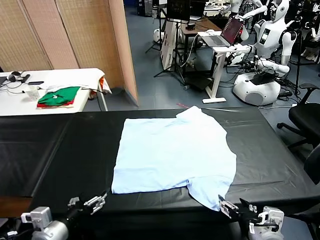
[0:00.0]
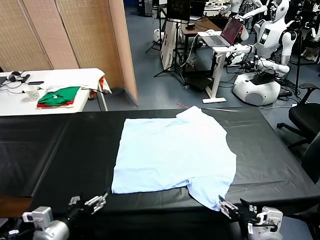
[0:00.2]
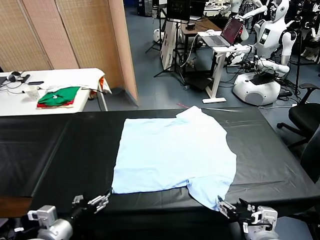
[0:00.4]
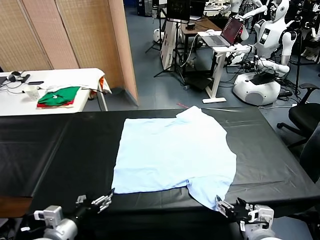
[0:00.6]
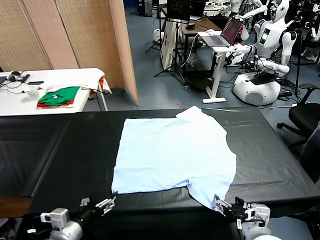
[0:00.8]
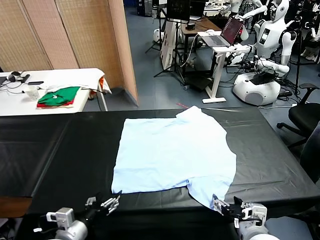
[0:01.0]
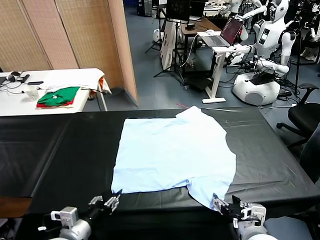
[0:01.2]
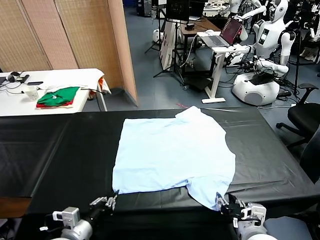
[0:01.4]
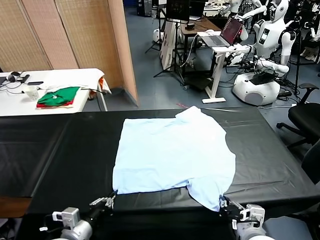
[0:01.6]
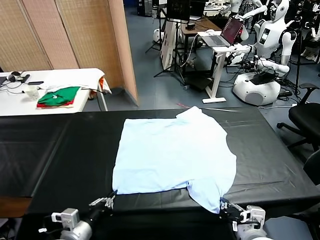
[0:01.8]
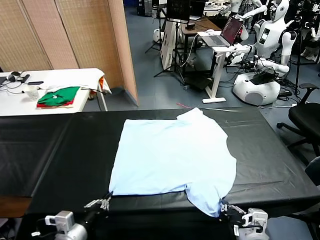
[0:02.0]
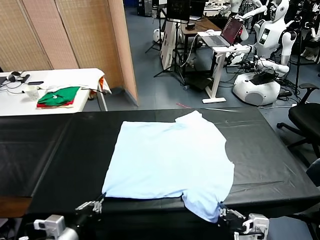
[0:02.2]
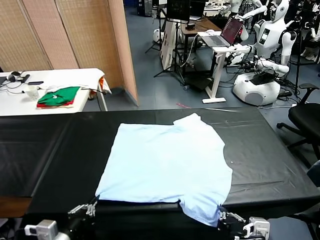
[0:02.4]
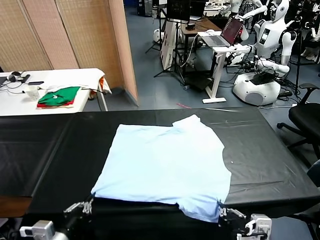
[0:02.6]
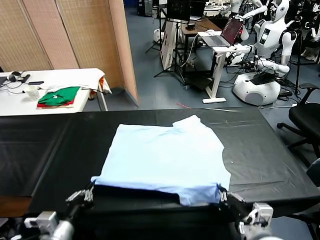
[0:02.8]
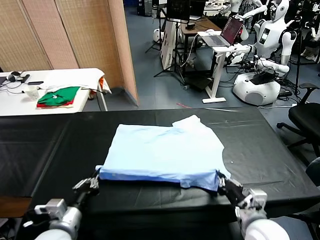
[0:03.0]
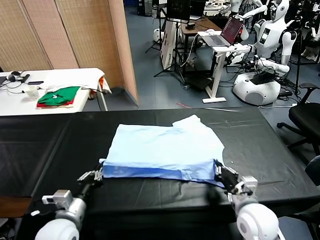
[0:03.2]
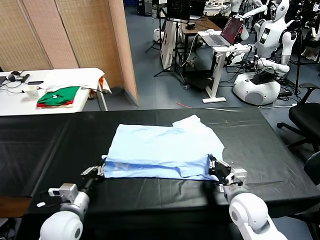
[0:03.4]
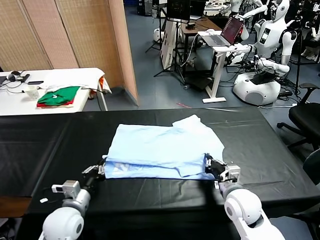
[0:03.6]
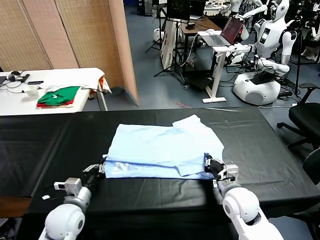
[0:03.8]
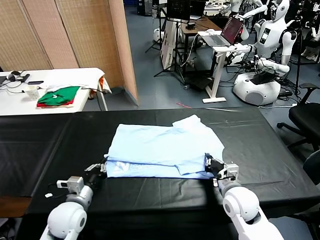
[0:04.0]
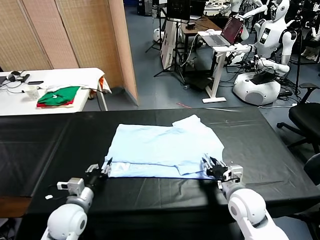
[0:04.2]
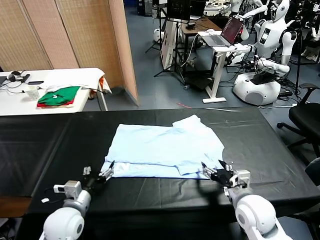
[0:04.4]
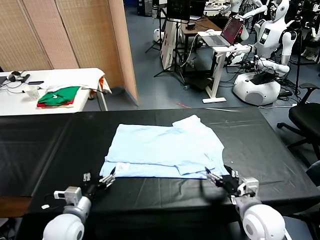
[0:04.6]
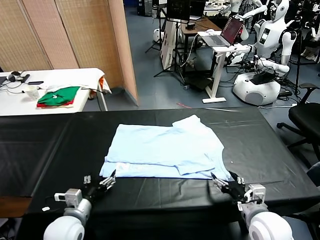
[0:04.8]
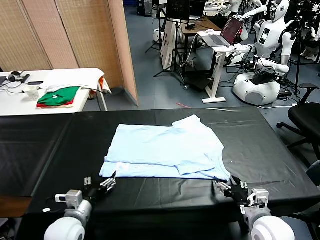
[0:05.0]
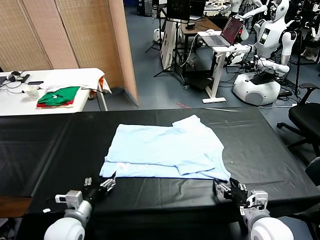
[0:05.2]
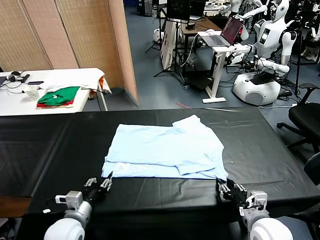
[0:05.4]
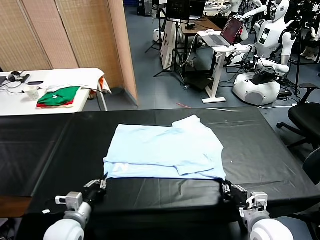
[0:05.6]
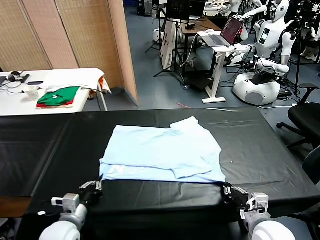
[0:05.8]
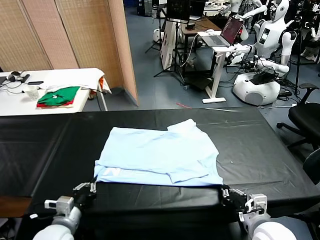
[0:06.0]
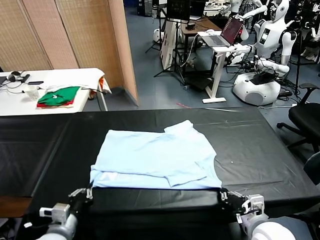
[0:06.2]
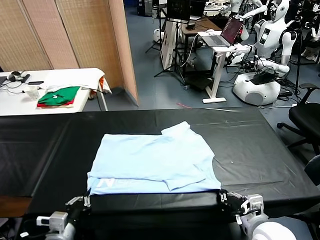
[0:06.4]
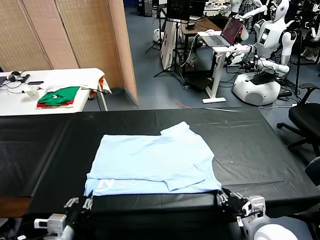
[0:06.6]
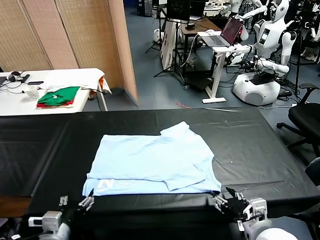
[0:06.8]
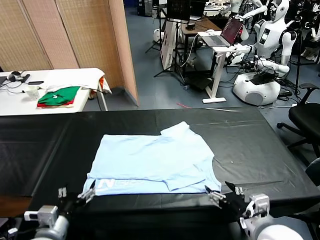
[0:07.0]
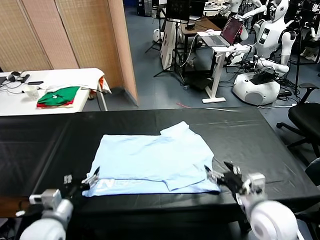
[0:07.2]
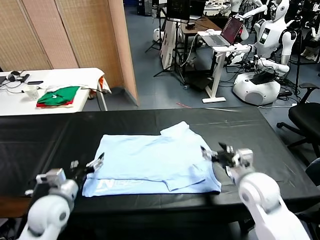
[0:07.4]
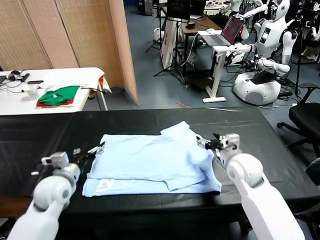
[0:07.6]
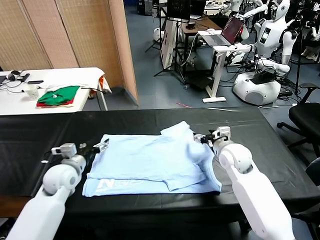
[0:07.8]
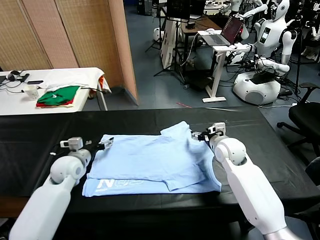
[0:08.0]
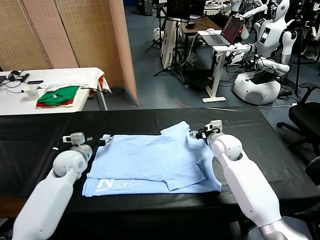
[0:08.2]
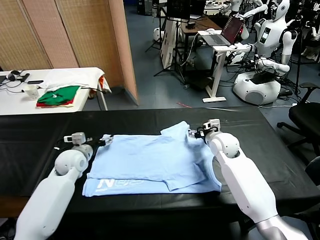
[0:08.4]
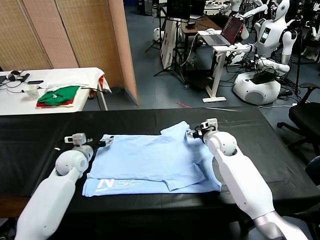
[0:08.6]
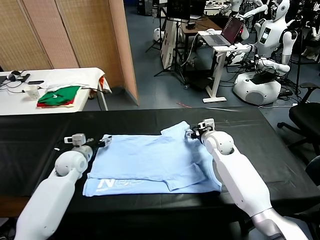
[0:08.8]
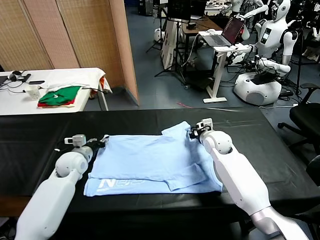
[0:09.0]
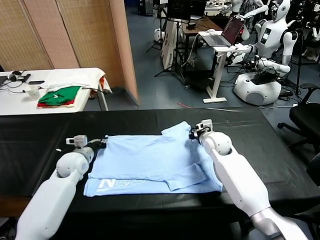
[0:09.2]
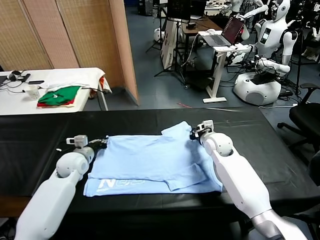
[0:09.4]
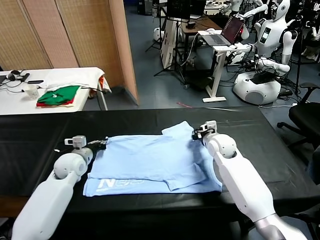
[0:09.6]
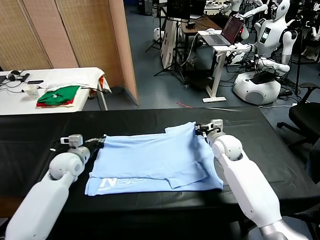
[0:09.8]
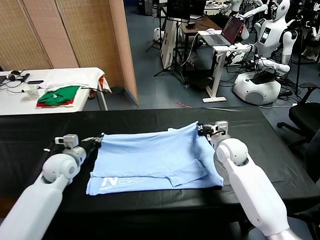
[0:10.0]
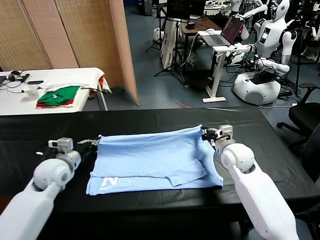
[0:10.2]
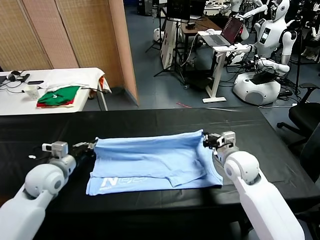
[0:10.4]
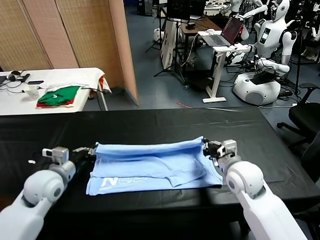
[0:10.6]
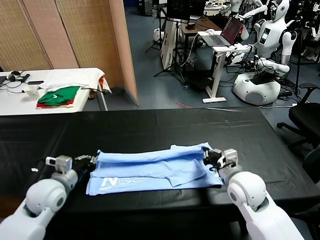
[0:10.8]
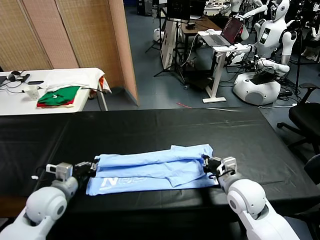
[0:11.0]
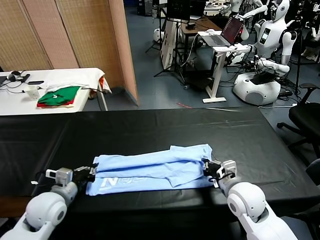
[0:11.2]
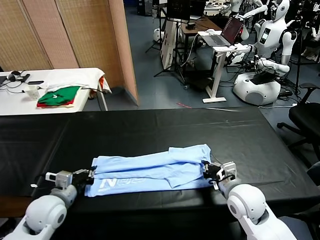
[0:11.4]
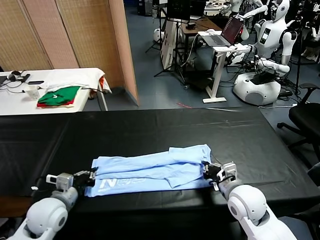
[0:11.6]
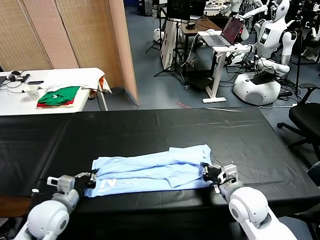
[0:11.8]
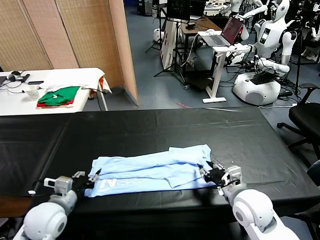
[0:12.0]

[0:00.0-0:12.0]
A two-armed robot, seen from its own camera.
Task of the whole recording: fold and organize the clothes.
Step, 0:00.0 to 0:01.4: use both grippers simultaneously to clamp the lower edge of the clothing fabric.
Step, 0:01.8 to 0:04.2: use both grippers to drag the lower edge of the fabric forward and fold it over the upper edge.
Step, 0:04.4 to 0:06.6: Drag the clothes downward with both gripper.
Step, 0:06.8 to 0:09.0: use both grippers simultaneously to clamp the upper edge of the clothing fabric.
Step, 0:09.4 to 0:12.0: use both grippers to drag the upper edge of the fabric backward and fold it over the lower edge.
0:01.6 to 0:03.0: The right gripper heads forward, covering approximately 10 cm.
0:03.0 to 0:04.4: The right gripper opens up; the left gripper changes place by approximately 5 cm, and opens up.
0:04.4 to 0:06.0: The right gripper closes its fingers, while the left gripper ends up about 5 cm from where it was, and closes up.
0:06.0 to 0:07.6: The left gripper moves forward, roughly 15 cm, and opens its fingers, while the right gripper moves forward, approximately 25 cm, and opens.
0:07.6 to 0:09.0: Both grippers move forward, roughly 10 cm. The left gripper closes its fingers. Meanwhile the right gripper closes its fingers.
0:09.0 to 0:10.4: The left gripper heads backward and upward, covering approximately 15 cm. Meanwhile the right gripper shifts approximately 15 cm backward.
0:10.4 to 0:12.0: The two grippers go some 10 cm backward. The right gripper opens; the left gripper opens.

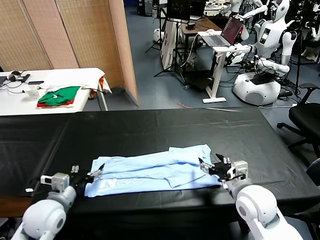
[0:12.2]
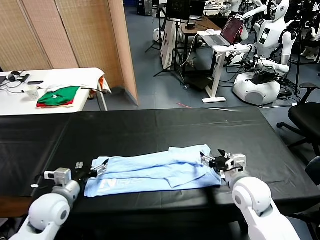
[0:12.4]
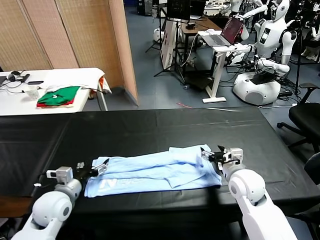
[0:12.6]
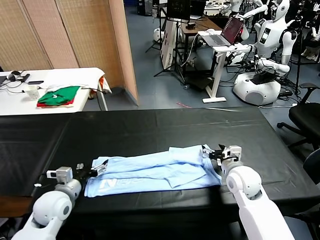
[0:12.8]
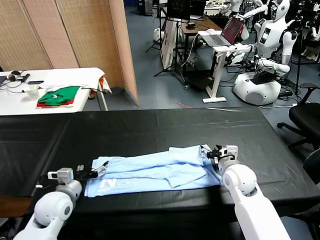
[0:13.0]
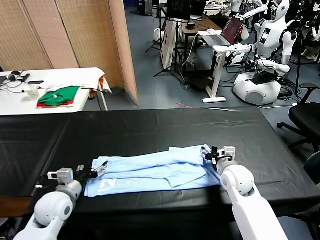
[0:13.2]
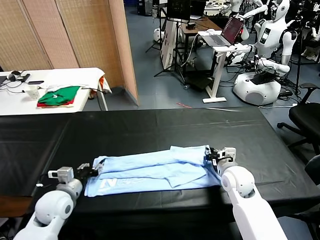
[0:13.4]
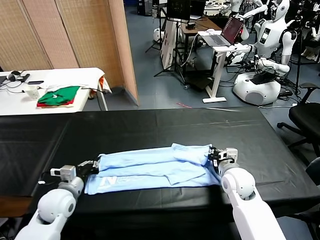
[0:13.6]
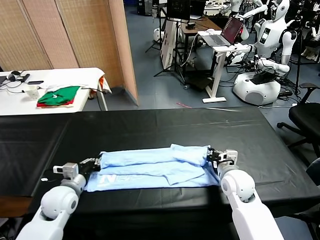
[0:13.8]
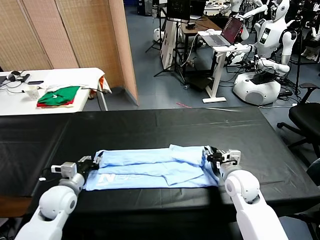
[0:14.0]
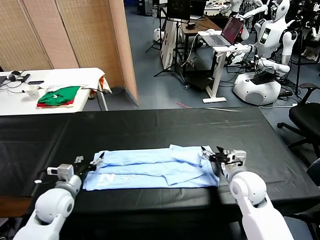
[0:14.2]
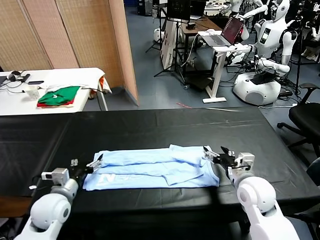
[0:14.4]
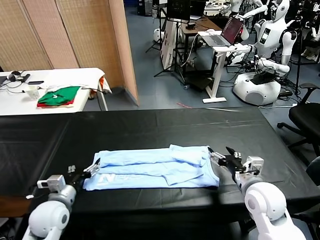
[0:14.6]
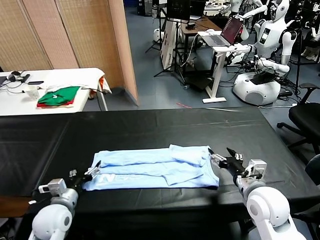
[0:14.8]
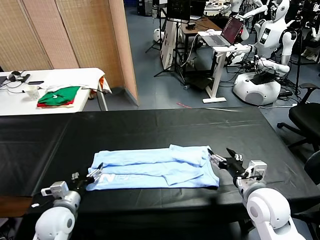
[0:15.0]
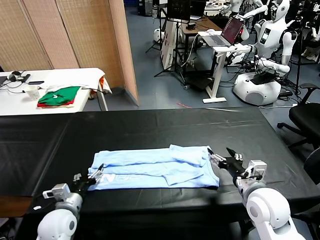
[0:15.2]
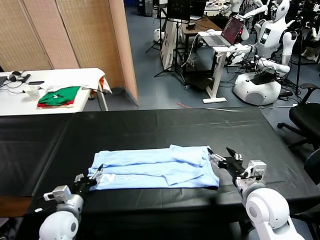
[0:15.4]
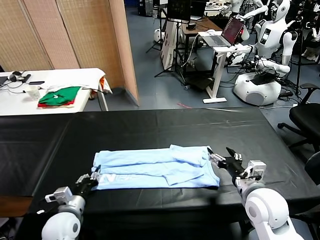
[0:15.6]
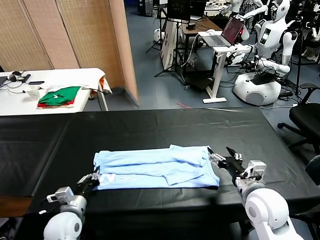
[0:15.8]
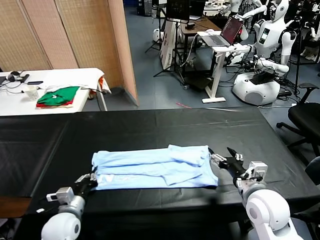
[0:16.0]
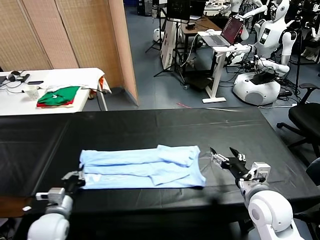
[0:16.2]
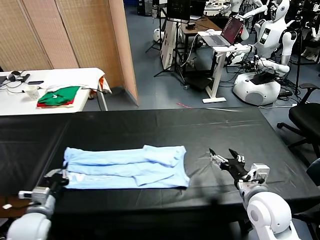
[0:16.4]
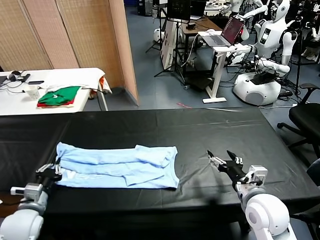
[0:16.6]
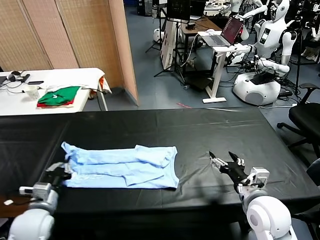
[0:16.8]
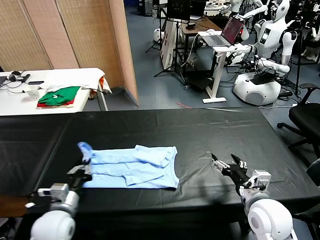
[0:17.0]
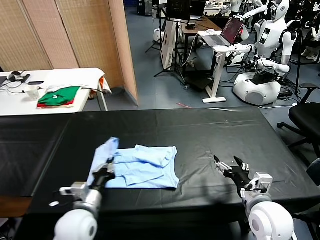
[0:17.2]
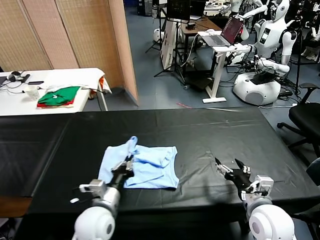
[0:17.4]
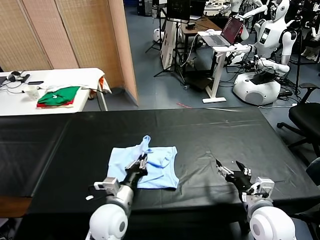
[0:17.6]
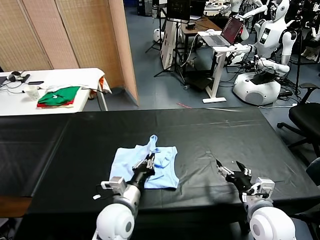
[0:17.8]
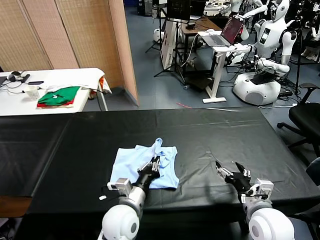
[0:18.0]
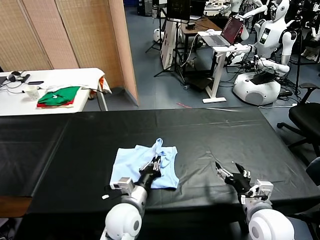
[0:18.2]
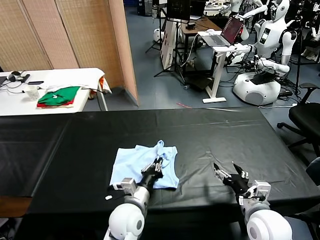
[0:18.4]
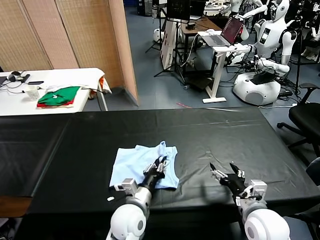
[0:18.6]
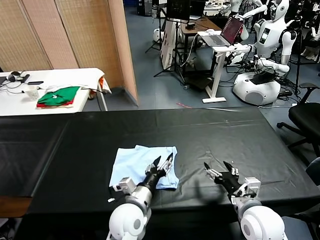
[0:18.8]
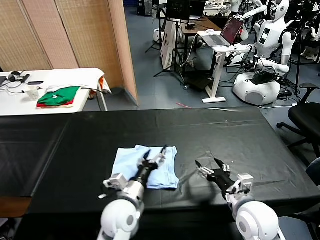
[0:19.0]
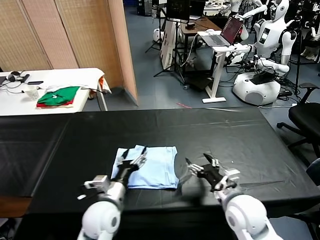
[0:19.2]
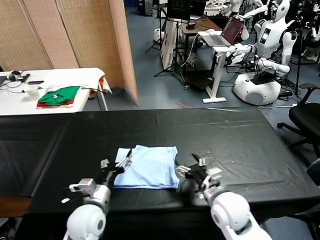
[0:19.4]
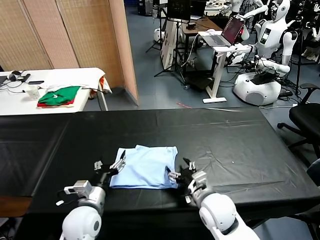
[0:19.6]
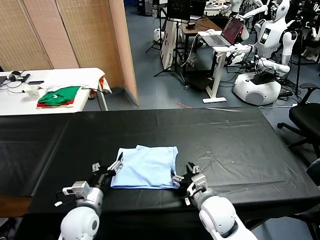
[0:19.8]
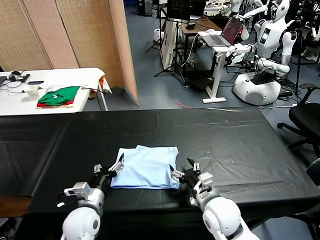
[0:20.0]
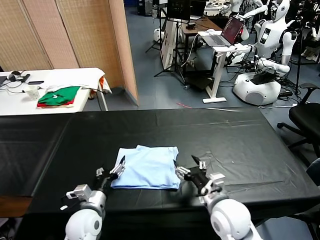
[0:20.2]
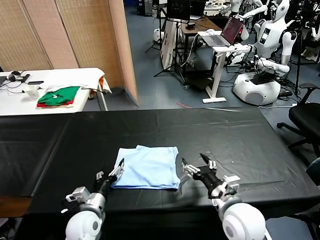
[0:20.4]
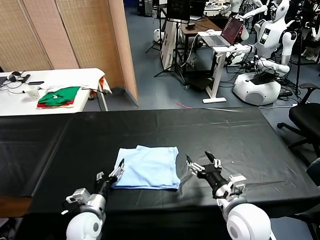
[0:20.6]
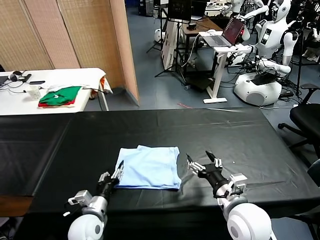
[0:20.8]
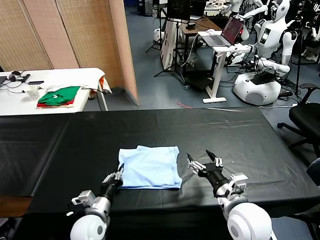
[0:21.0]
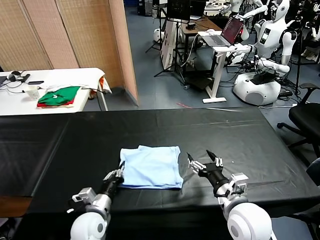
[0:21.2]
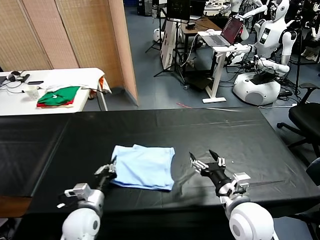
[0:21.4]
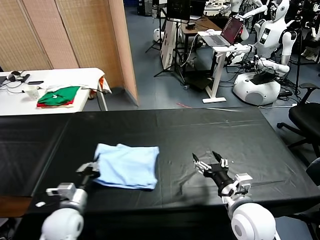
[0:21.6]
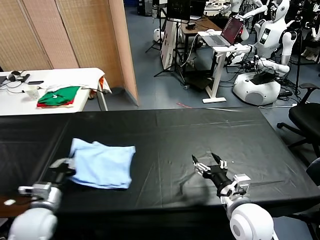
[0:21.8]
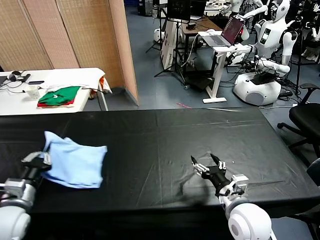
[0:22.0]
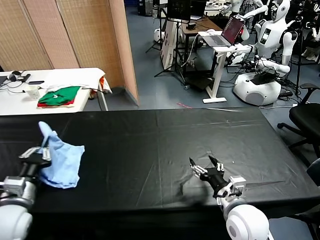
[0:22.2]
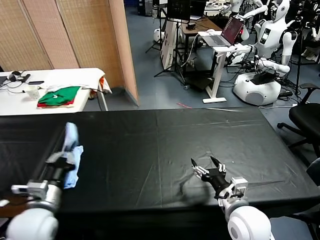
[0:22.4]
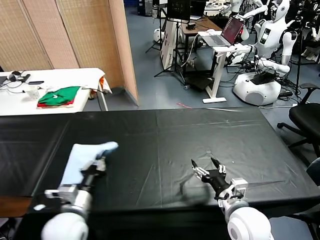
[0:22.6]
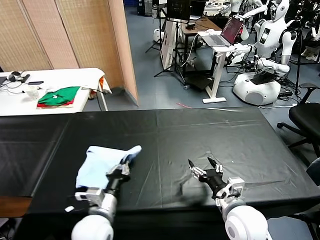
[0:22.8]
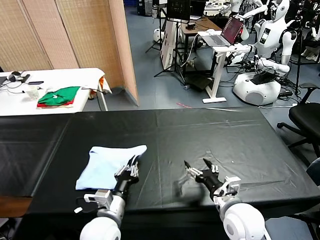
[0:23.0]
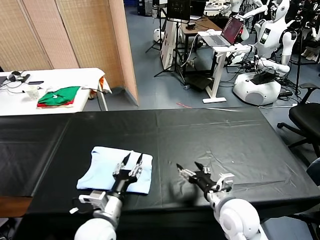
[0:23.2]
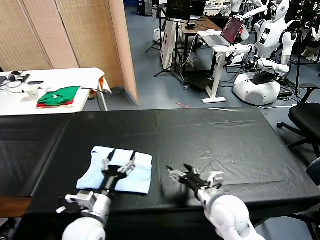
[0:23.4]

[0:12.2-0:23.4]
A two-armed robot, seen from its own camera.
Task of the whole recording: fold and organize the clothes.
Step, 0:12.2 to 0:15.6: use the left gripper to clamp the left edge of the fabric.
Step, 0:15.8 to 0:18.6: use the left gripper to drag the left edge of the fabric to the left and folds it over the right edge.
Step, 0:18.8 to 0:23.0: Flip the folded clothes over with left gripper.
0:12.2 to 0:13.8: The right gripper ends up approximately 5 cm from where it was, and closes its fingers, while the left gripper travels forward by about 5 cm, and closes its fingers.
0:13.8 to 0:15.4: The right gripper heads backward and upward, covering roughly 10 cm, and opens its fingers, while the left gripper heads backward, covering approximately 5 cm, and opens.
0:15.4 to 0:17.0: The left gripper moves approximately 10 cm to the left and comes back, and closes up.
0:17.0 to 0:18.6: The left gripper is displaced to the right by roughly 20 cm.
0:18.6 to 0:20.2: The left gripper goes roughly 15 cm to the left, and opens. Meanwhile the right gripper travels to the left by approximately 5 cm.
0:20.2 to 0:21.8: The left gripper is displaced to the left and upward by about 15 cm, and closes.
0:21.8 to 0:23.4: The right gripper ends up roughly 5 cm from where it was, while the left gripper moves to the right, about 15 cm, and opens up.
